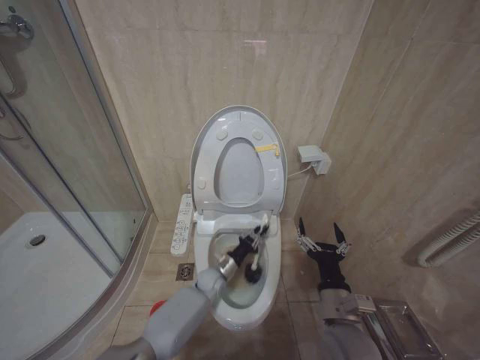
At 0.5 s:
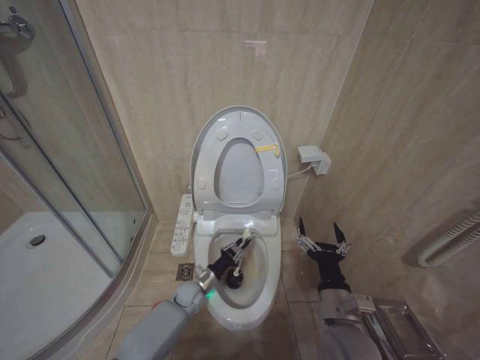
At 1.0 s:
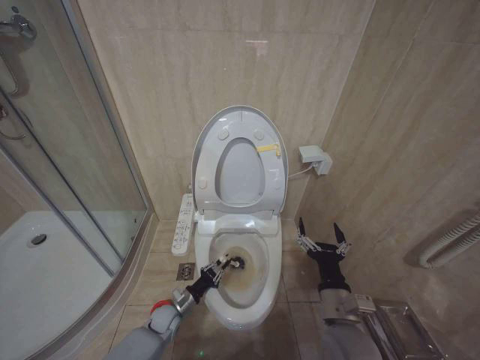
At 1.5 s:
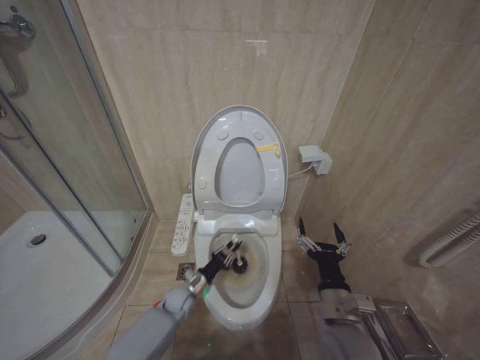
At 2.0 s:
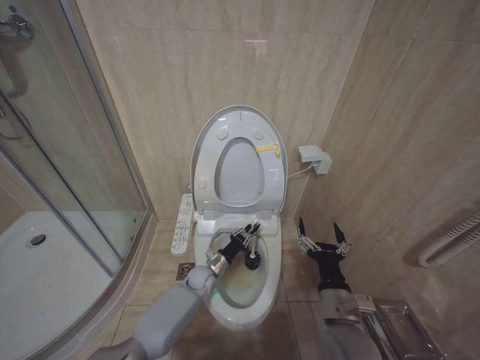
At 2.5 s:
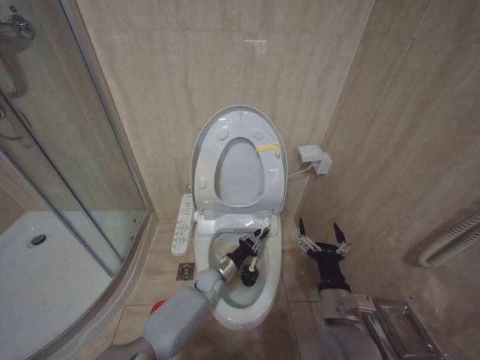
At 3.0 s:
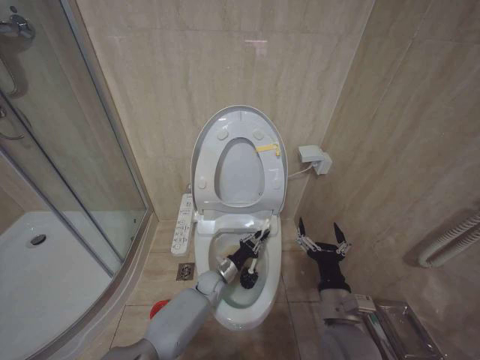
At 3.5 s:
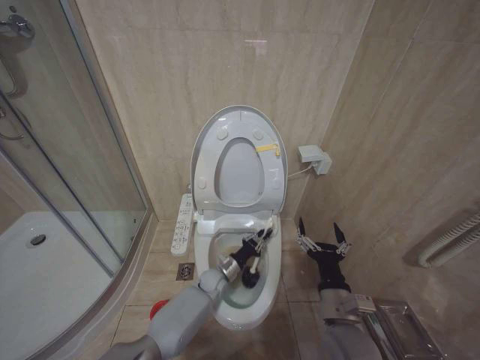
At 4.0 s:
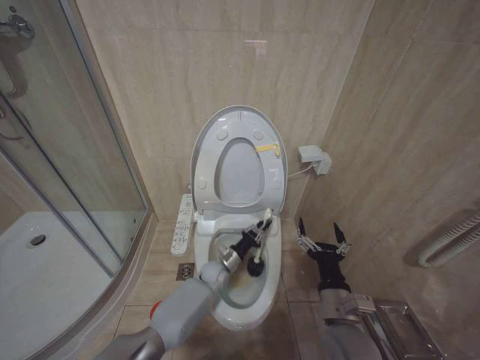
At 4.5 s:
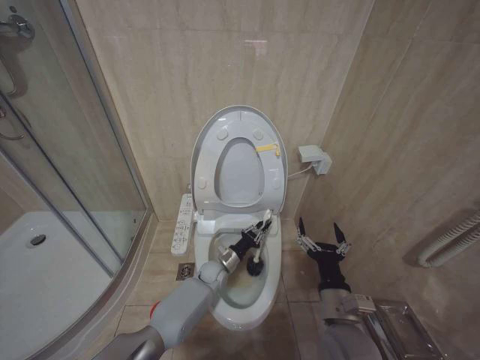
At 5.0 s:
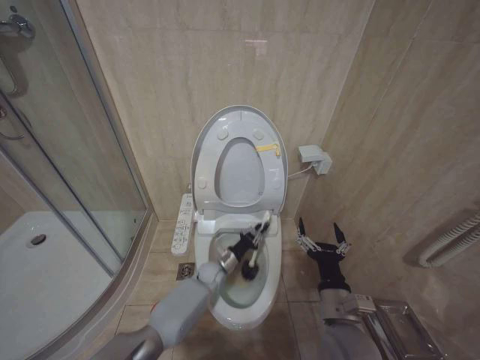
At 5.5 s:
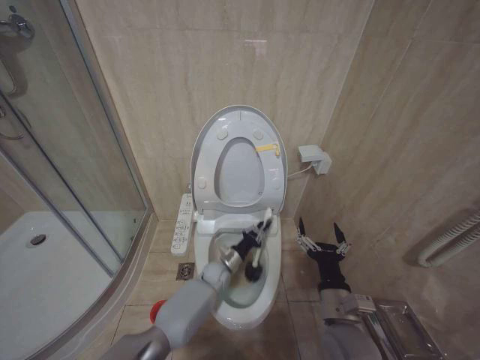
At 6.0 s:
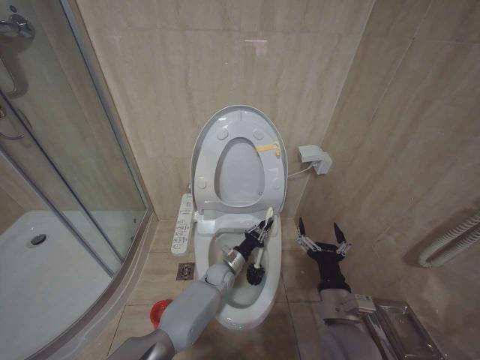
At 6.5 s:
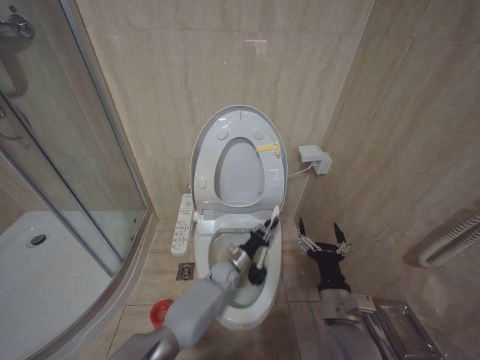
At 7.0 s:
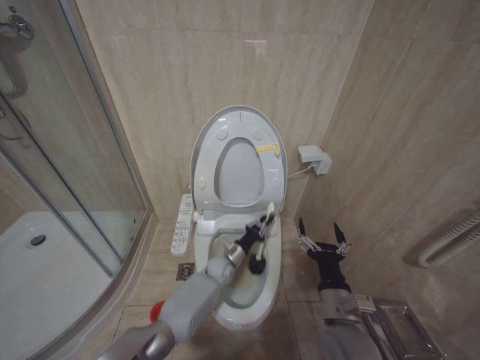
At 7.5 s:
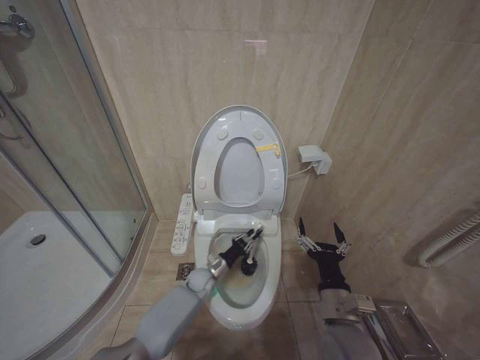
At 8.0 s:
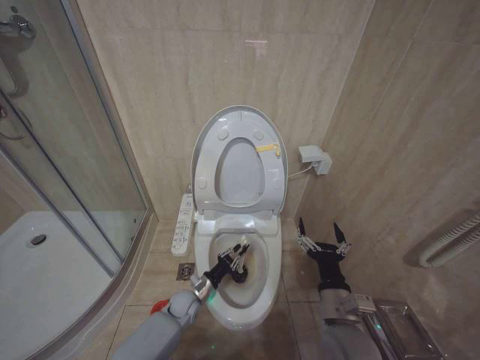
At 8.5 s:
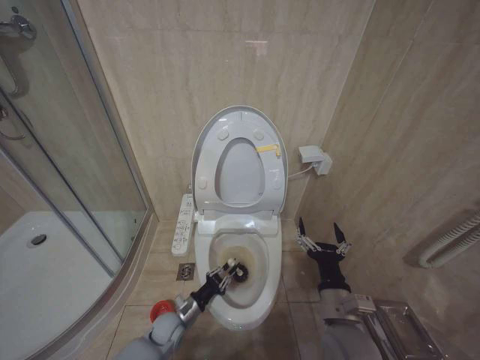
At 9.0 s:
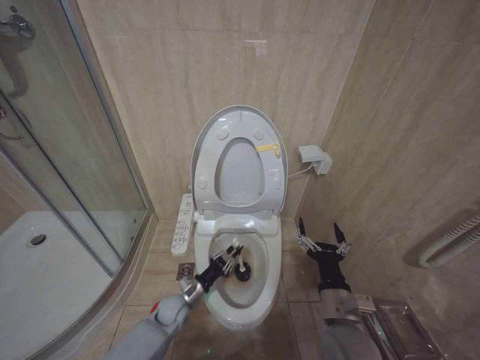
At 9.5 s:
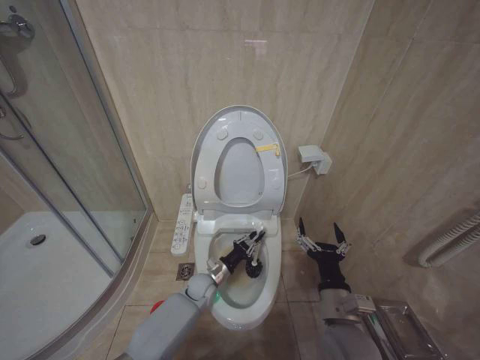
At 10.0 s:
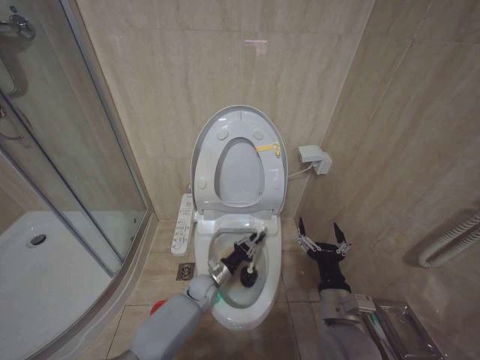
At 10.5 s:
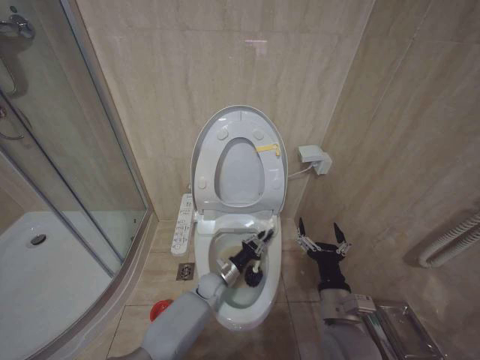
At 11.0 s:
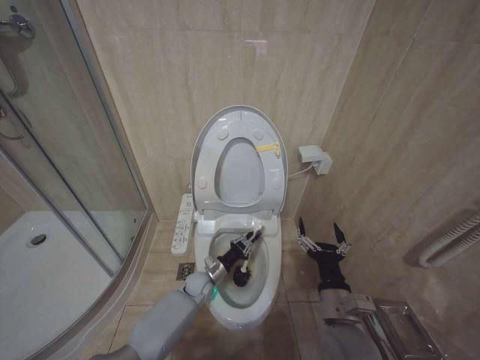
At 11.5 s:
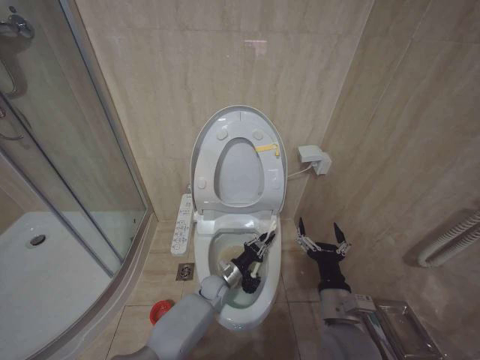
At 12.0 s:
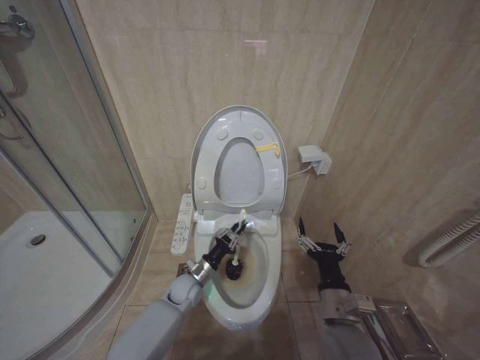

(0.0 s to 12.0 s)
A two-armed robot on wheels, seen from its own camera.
Task of the whole recording: Open the toilet lid, clean the toilet bowl with a toilet brush, close the toilet lid, and flush.
0.0 s - 2.0 s: The left gripper moves roughly 15 cm to the left and comes back.
2.0 s - 4.0 s: The left gripper ends up approximately 5 cm from where it was.
4.0 s - 6.0 s: The grippers move only a little.
6.0 s - 8.0 s: The left gripper travels to the left and backward by some 15 cm.
8.0 s - 10.0 s: The left gripper heads to the right, covering approximately 5 cm.
10.0 s - 12.0 s: The grippers make only small movements.

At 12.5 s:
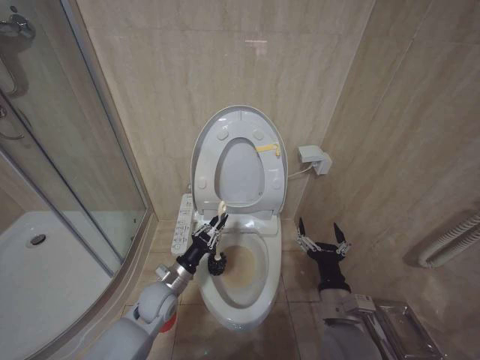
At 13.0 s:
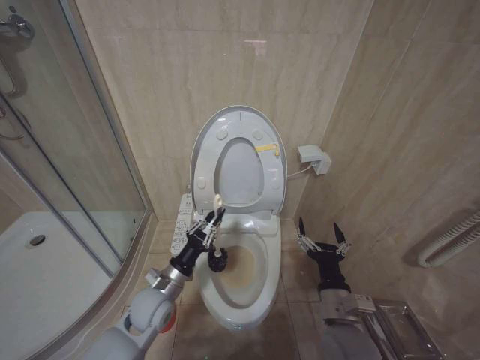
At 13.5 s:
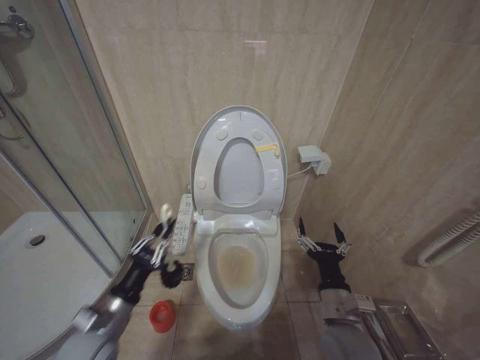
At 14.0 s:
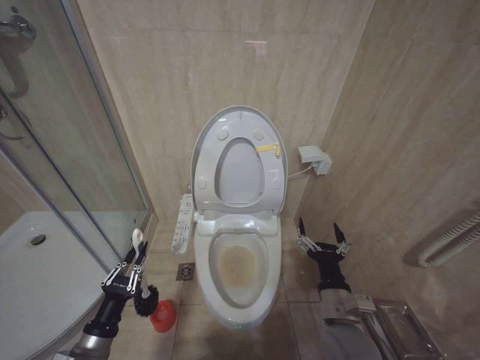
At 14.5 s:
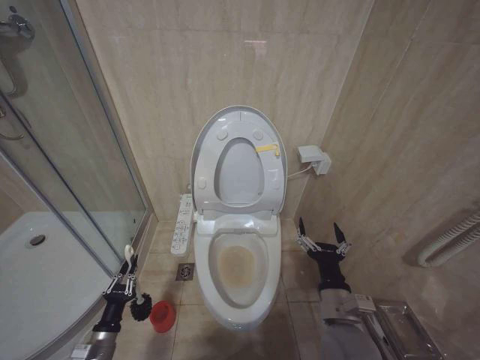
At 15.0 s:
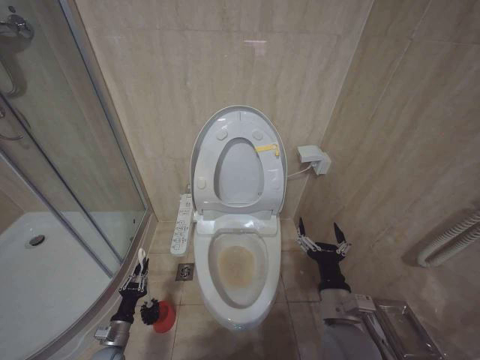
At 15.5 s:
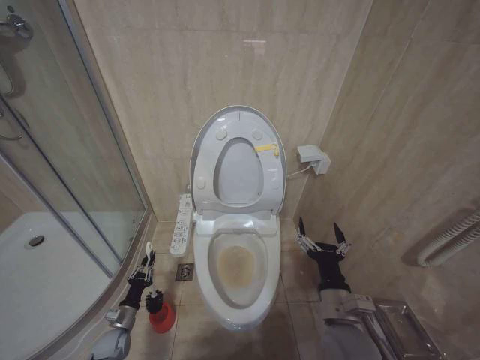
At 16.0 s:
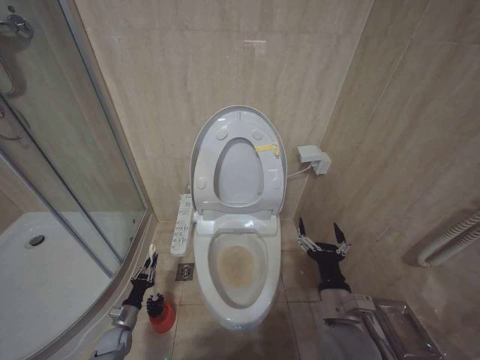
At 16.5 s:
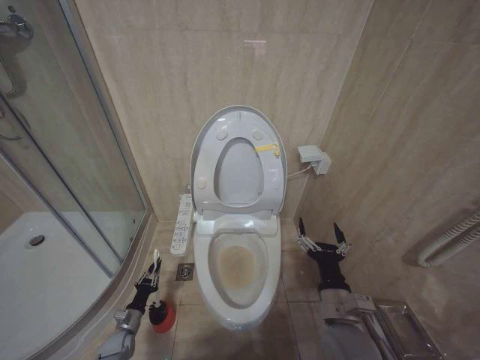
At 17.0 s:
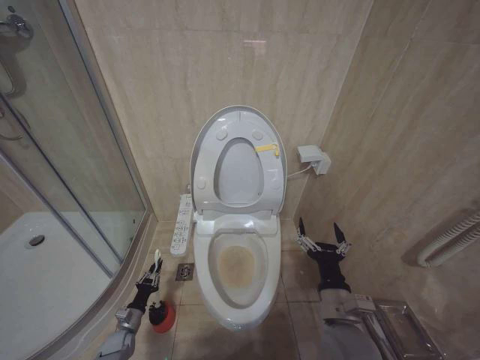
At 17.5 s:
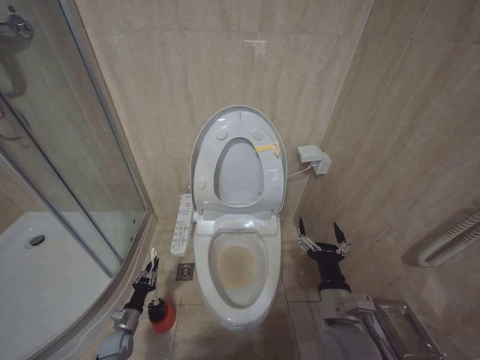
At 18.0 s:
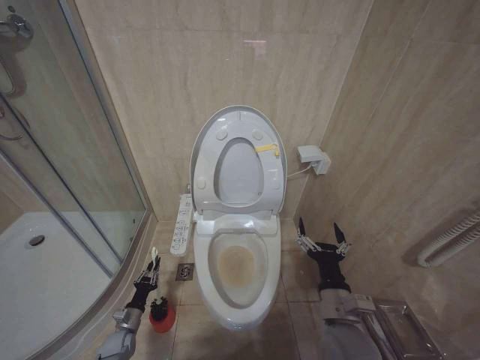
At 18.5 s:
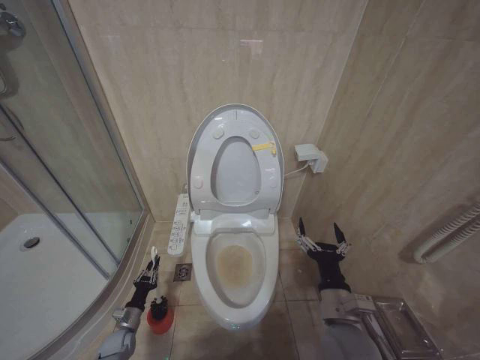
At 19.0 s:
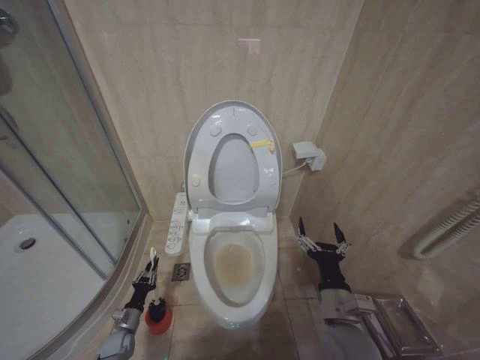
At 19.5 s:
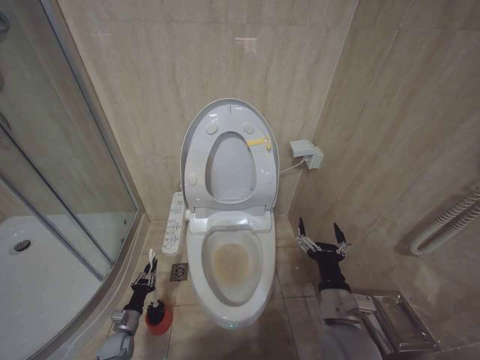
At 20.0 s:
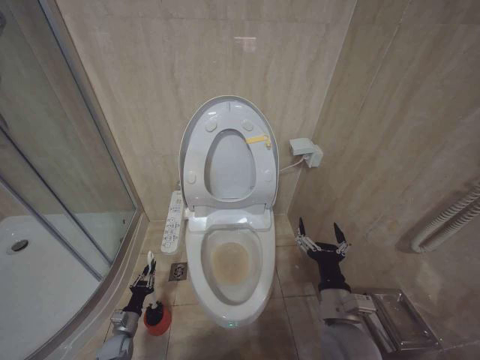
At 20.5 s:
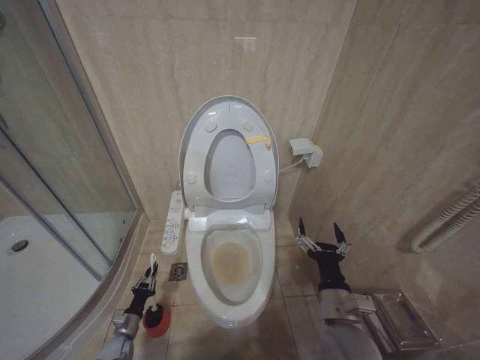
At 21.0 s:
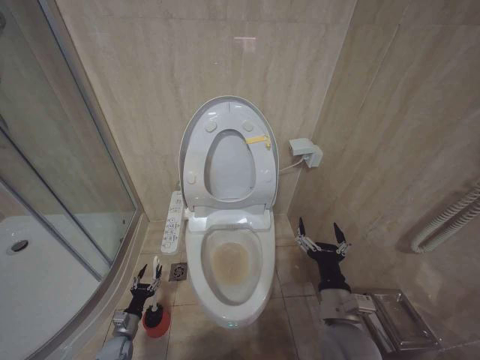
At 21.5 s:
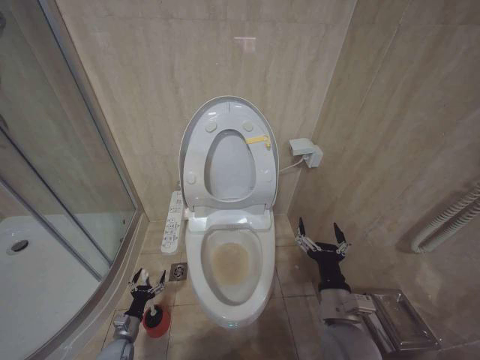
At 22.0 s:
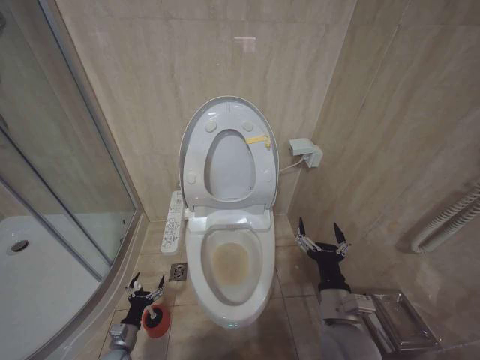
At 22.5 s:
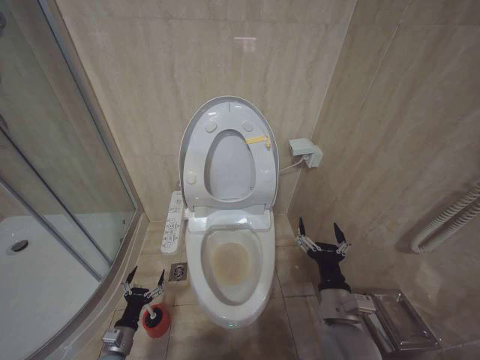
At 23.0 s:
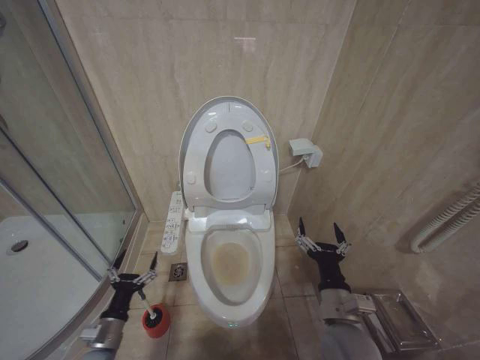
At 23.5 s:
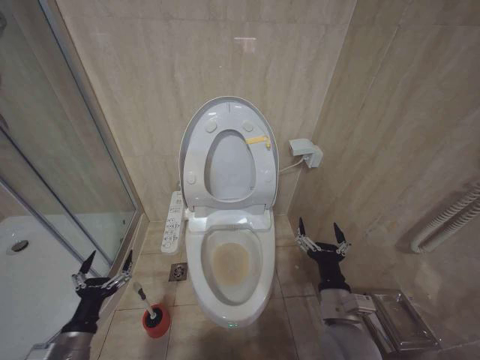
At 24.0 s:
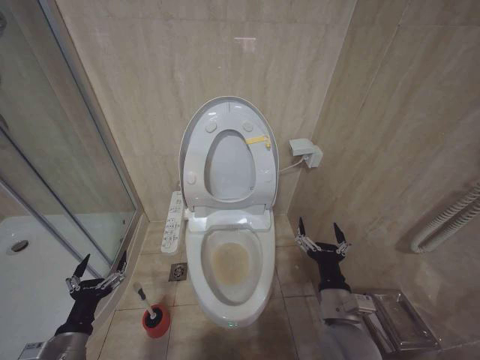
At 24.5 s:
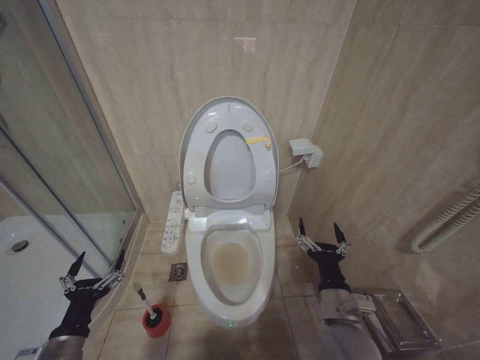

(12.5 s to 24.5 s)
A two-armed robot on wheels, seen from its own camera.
Task of the whole recording: Open the toilet lid, clean the toilet bowl with a toilet brush, close the toilet lid, and flush.
12.5 s - 14.5 s: The left gripper moves to the left, backward and downward, about 25 cm.
14.5 s - 16.5 s: The left gripper heads downward and forward, covering roughly 20 cm.
16.5 s - 18.5 s: The two grippers keep their place.
18.5 s - 20.5 s: The grippers move only a little.
20.5 s - 22.5 s: The left gripper is displaced upward and backward by roughly 10 cm, and opens its fingers.
22.5 s - 24.5 s: The left gripper goes roughly 20 cm upward.

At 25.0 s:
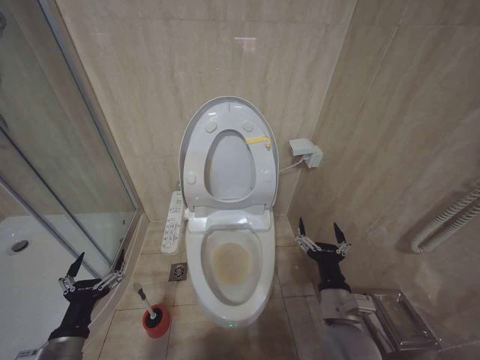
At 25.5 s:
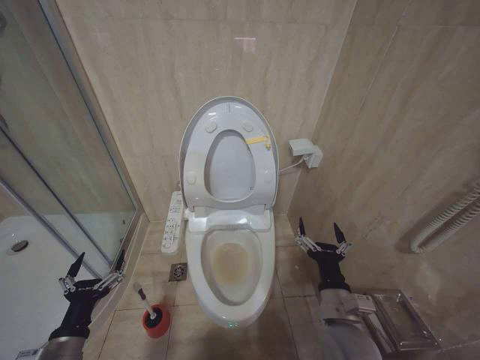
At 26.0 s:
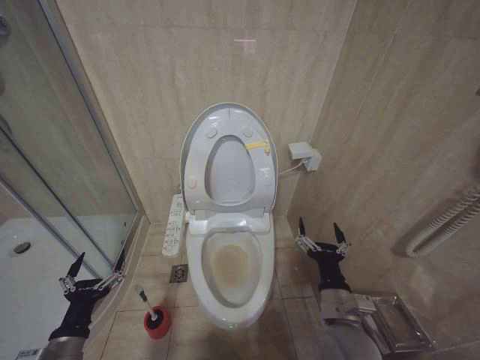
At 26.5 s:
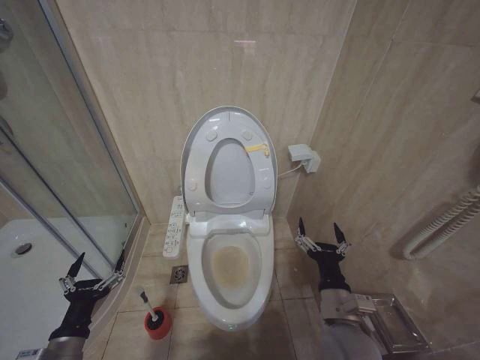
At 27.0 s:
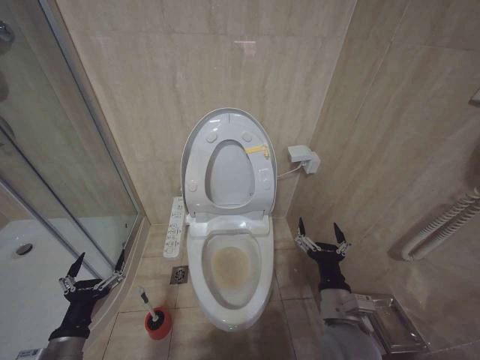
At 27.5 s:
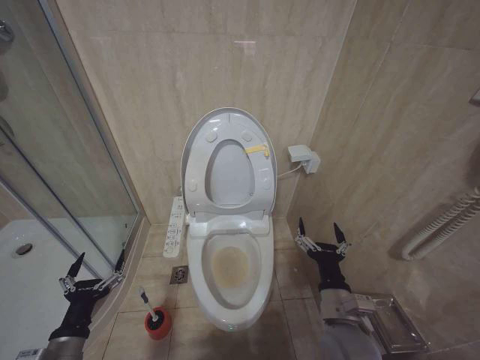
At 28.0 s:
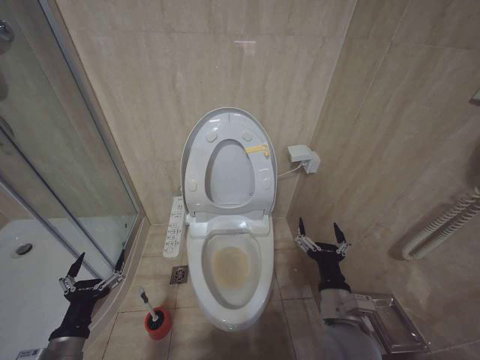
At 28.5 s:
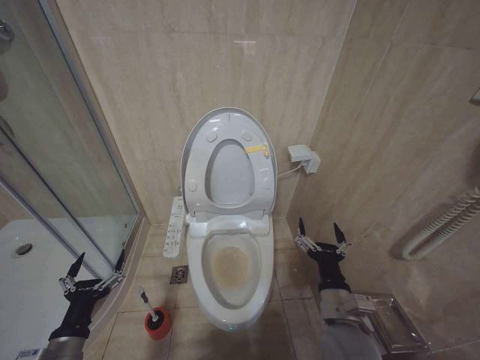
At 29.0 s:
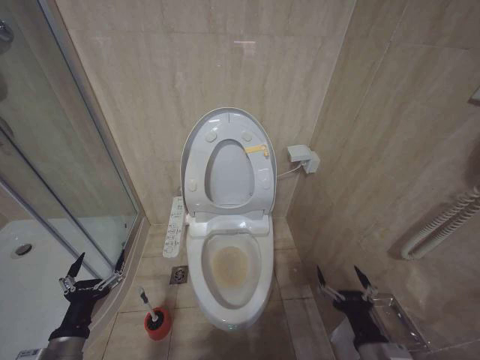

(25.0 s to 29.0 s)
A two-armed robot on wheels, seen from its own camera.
Task of the whole recording: Open the toilet lid, clean the toilet bowl with a toilet brush, close the toilet lid, and flush.
25.0 s - 27.0 s: The two grippers keep their place.
27.0 s - 29.0 s: The right gripper travels backward and to the right by some 10 cm.
